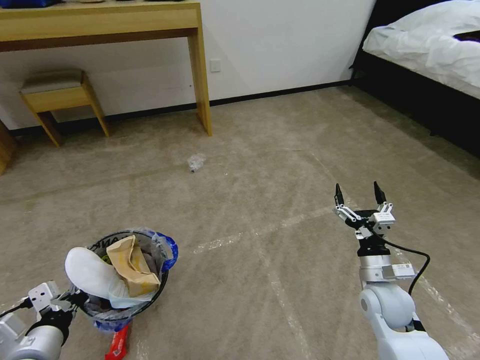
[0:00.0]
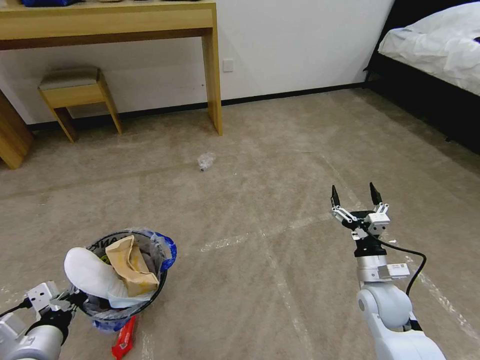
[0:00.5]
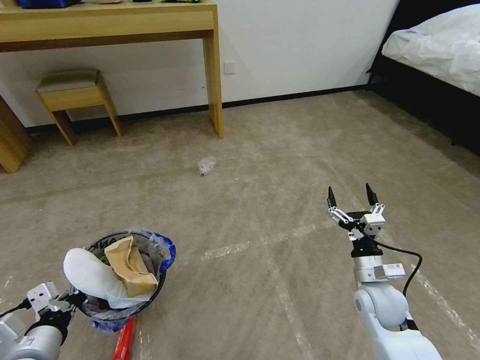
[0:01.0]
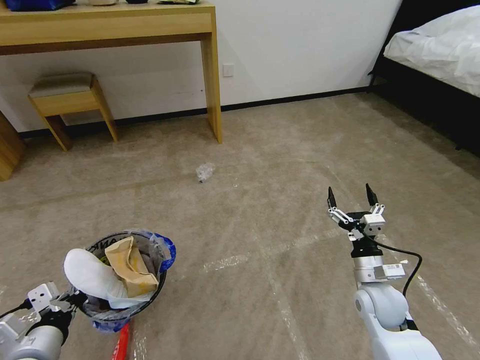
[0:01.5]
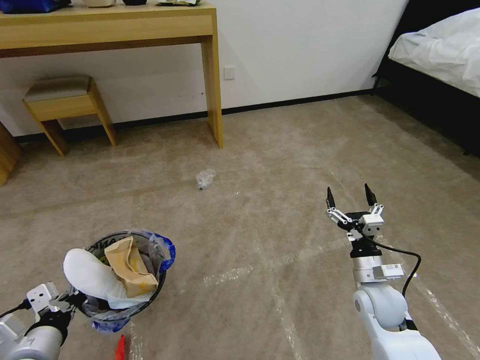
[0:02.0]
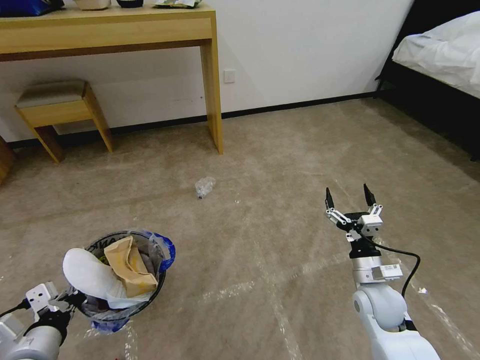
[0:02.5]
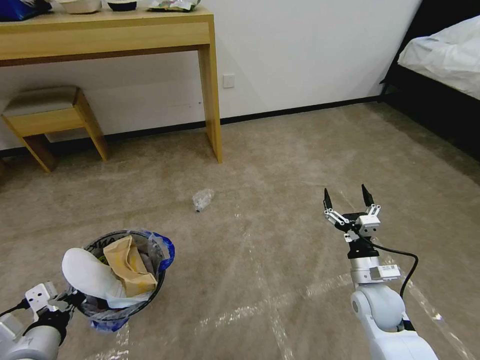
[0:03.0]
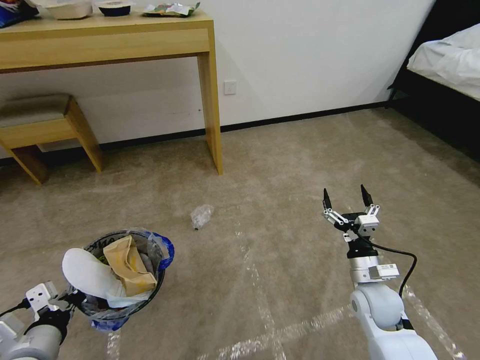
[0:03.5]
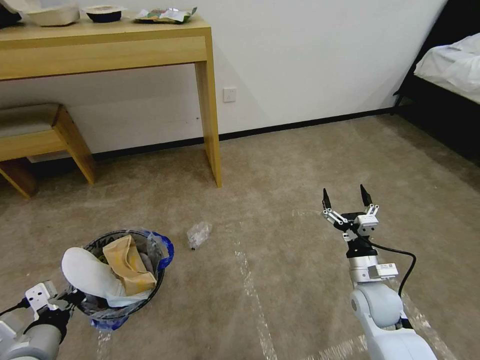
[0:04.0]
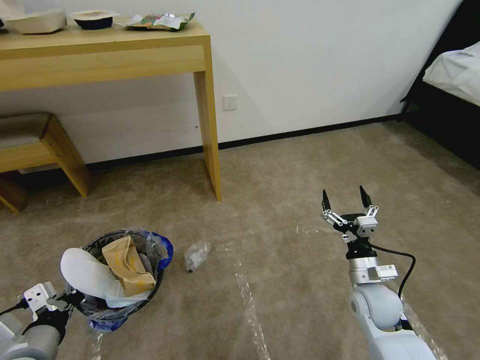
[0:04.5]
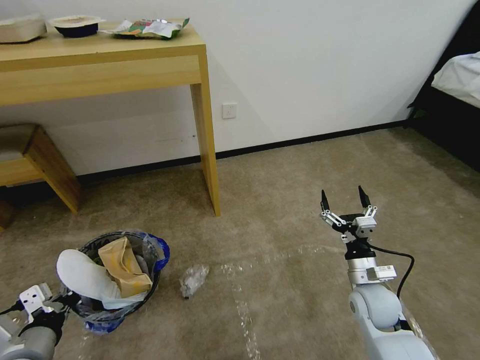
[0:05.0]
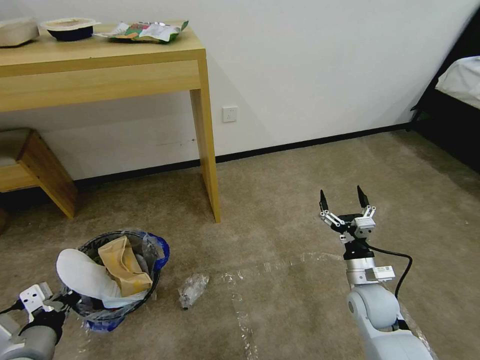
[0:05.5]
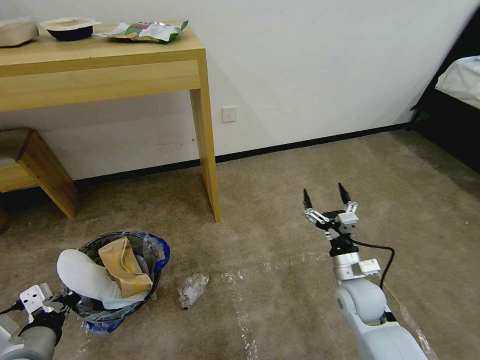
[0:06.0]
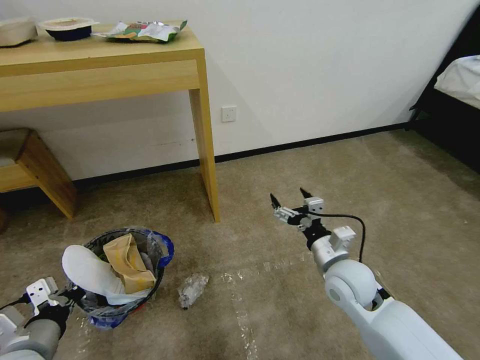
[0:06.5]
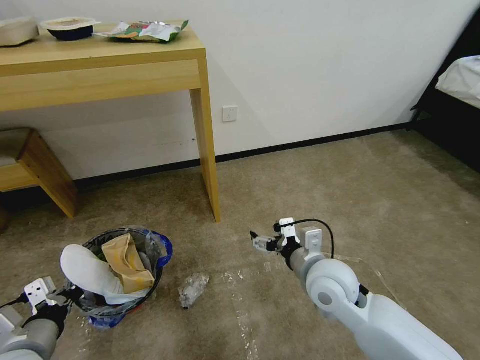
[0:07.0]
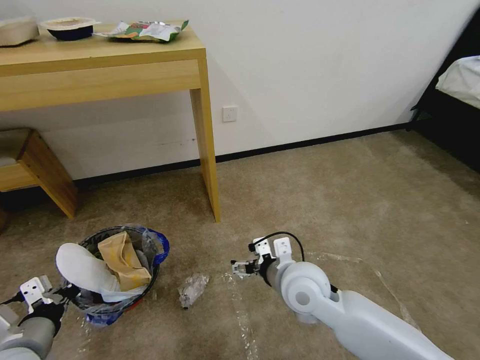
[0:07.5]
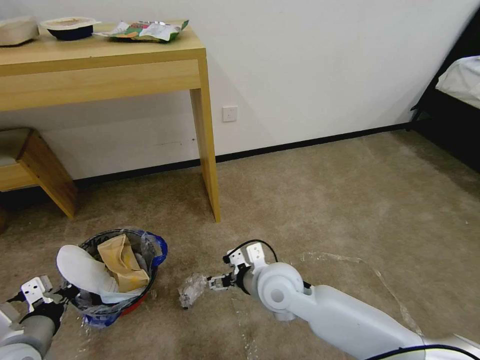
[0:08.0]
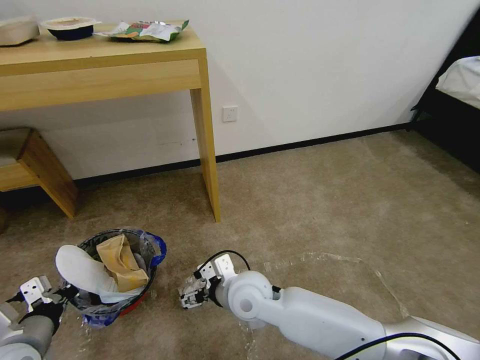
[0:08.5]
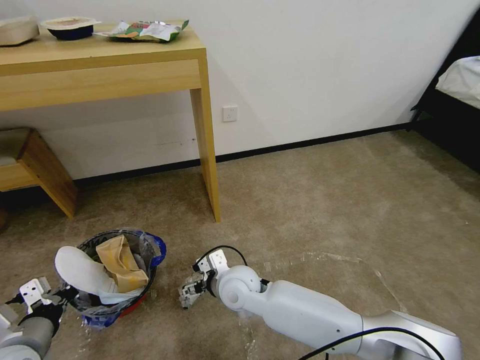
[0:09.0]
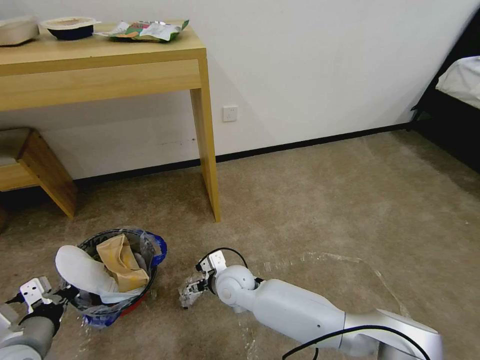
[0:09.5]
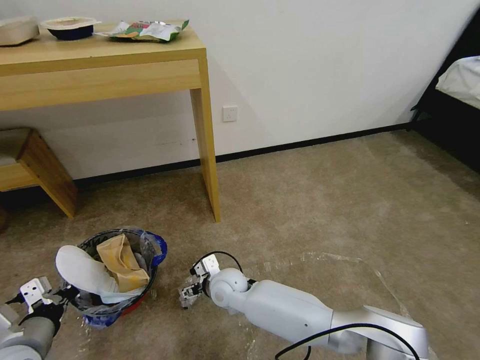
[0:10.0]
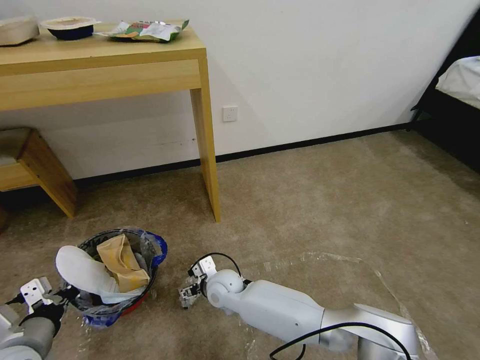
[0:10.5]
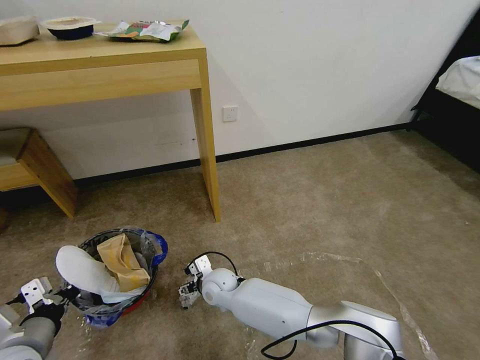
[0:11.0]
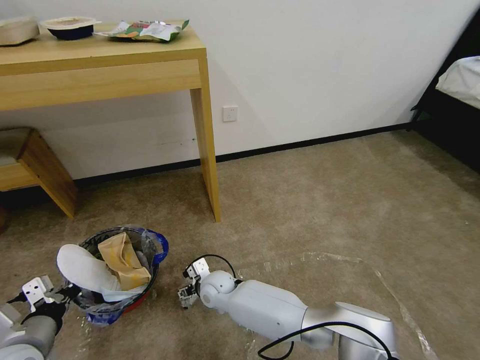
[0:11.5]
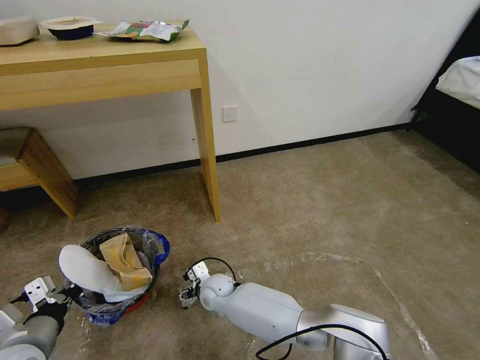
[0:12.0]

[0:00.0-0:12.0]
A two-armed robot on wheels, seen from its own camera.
Task of the whole recording: Pick up the trash bin and place the garbage on the floor into it.
0:00.0 to 0:02.0: The two grippers keep their place.
0:06.0 to 0:08.0: The right gripper goes about 20 cm to the left.
0:08.0 to 0:10.0: The right gripper shifts roughly 15 cm downward and to the left.
0:10.0 to 0:12.0: The right gripper goes some 5 cm downward.

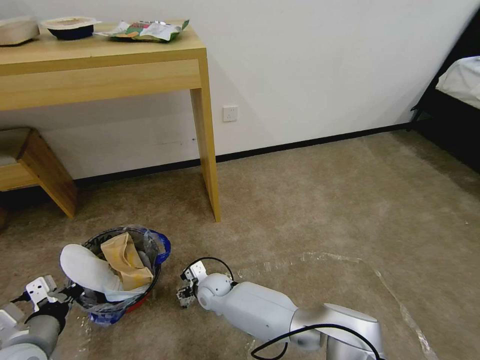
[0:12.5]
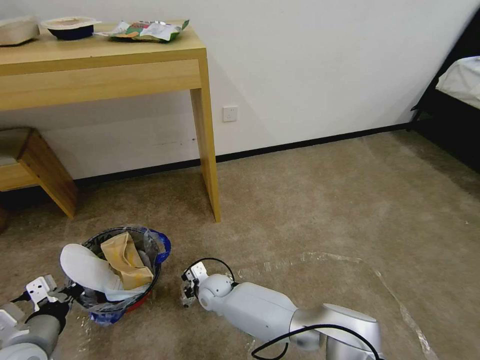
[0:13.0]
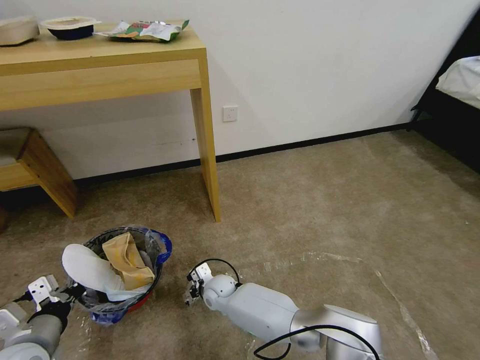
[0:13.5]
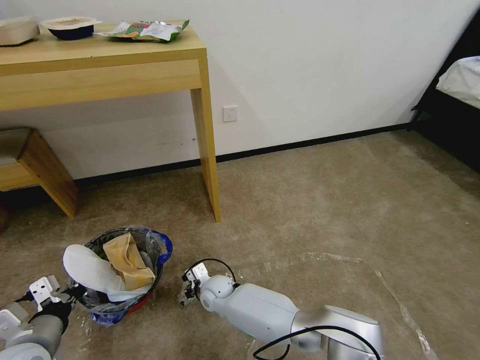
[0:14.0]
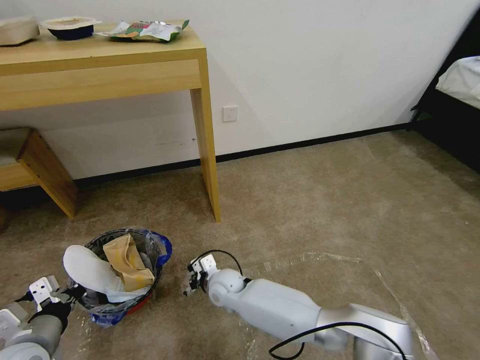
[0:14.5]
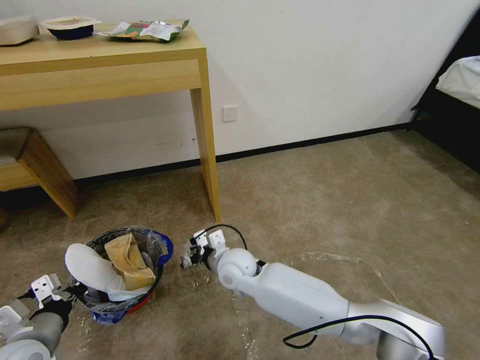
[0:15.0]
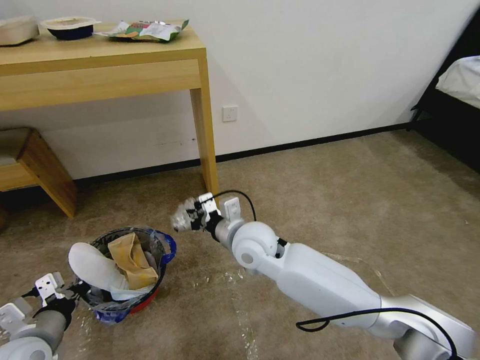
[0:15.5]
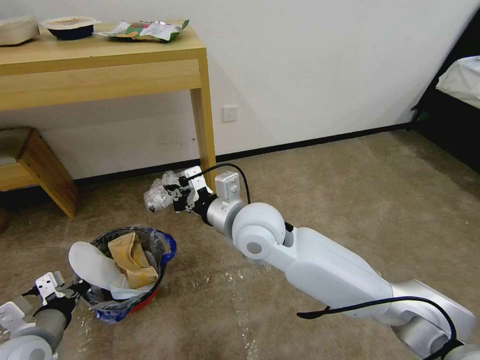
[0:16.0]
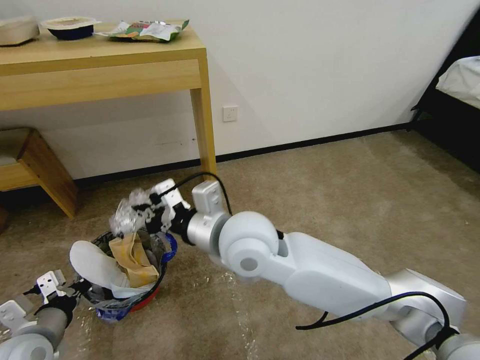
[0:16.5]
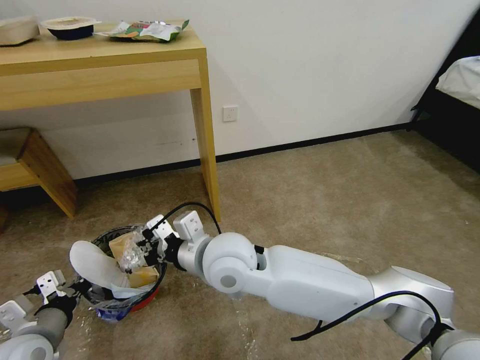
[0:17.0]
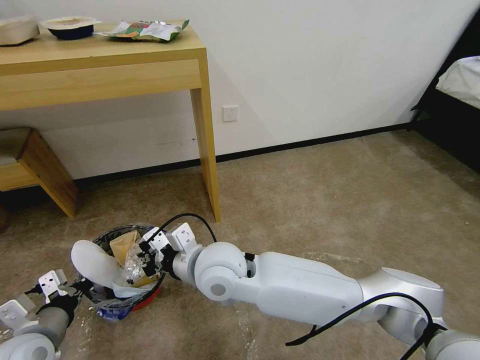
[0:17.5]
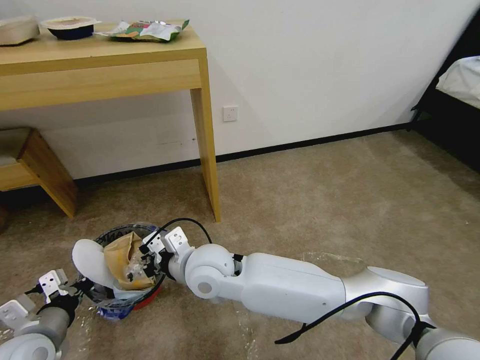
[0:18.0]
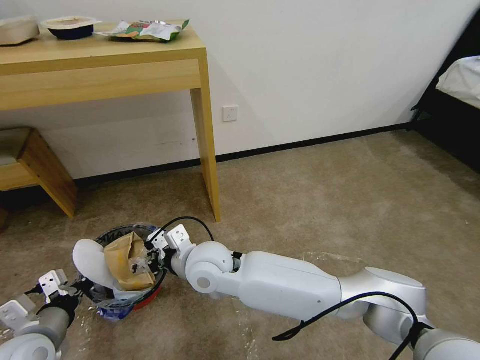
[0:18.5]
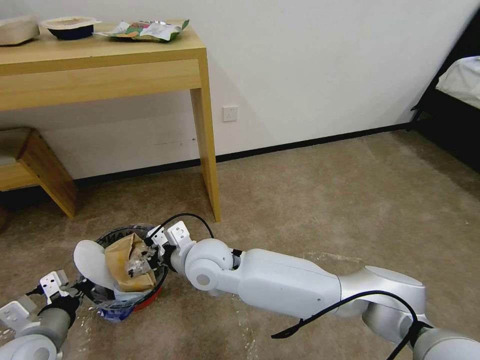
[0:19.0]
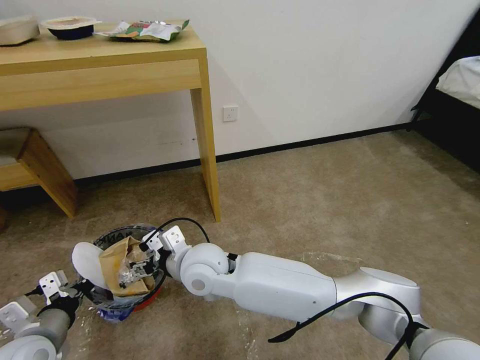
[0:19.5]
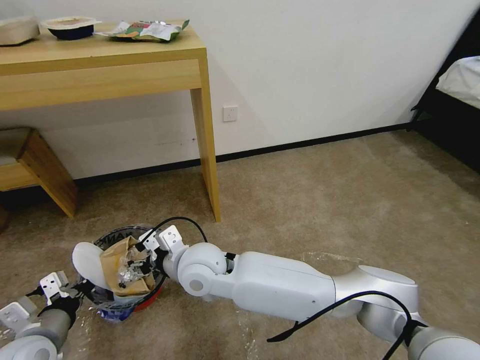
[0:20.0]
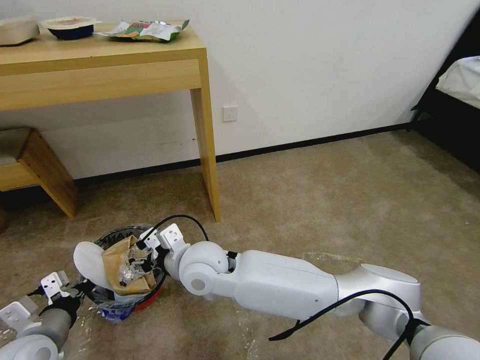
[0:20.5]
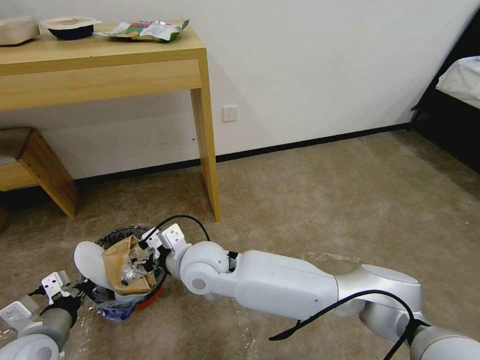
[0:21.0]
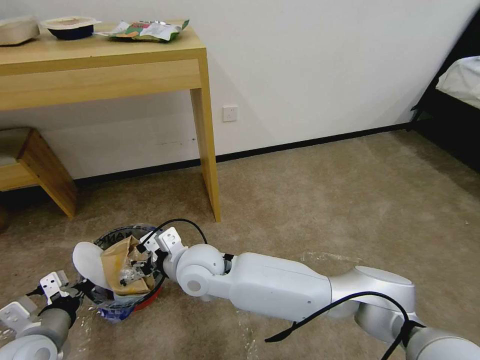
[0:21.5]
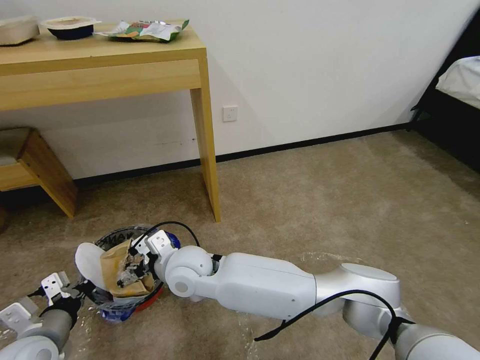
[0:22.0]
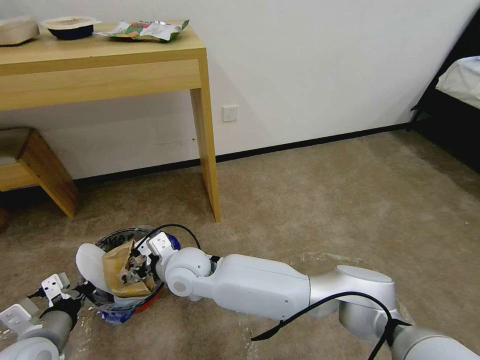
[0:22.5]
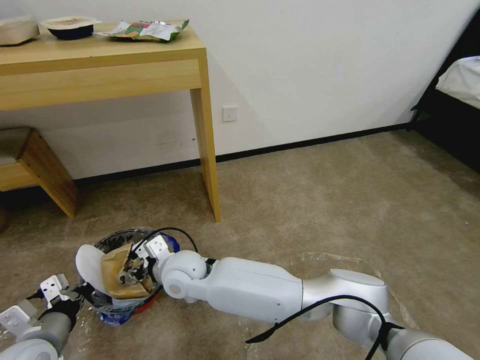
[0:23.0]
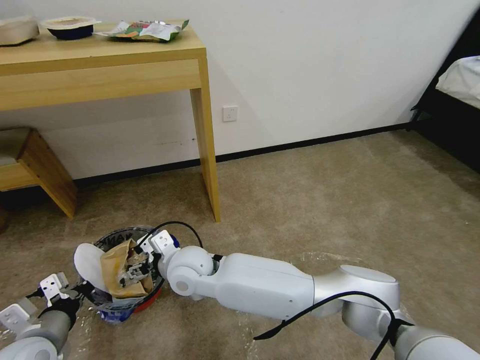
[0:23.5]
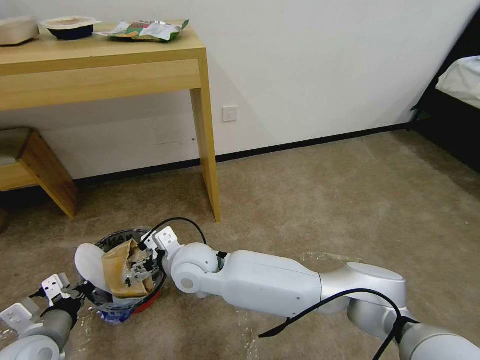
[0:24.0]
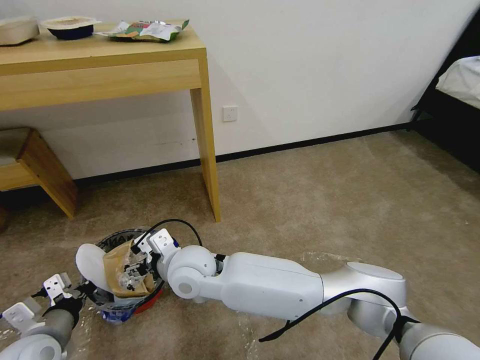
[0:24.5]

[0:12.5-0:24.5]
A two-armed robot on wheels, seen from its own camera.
Task of the whole recording: Pick up the trash bin and place the garbage on the floor into it.
0:12.5 to 0:14.5: The right gripper closes.
0:14.5 to 0:16.5: The right gripper goes approximately 30 cm upward.
0:16.5 to 0:18.5: The right gripper shifts about 15 cm downward and to the left.
0:18.5 to 0:20.5: The right gripper opens.
0:20.5 to 0:22.5: The right gripper travels downward by about 5 cm.
0:22.5 to 0:24.5: The grippers make only small movements.

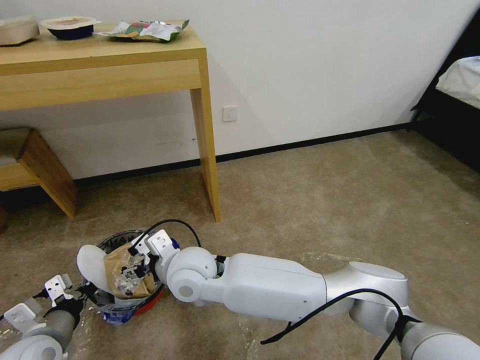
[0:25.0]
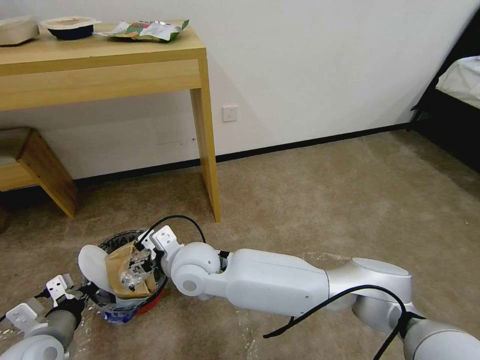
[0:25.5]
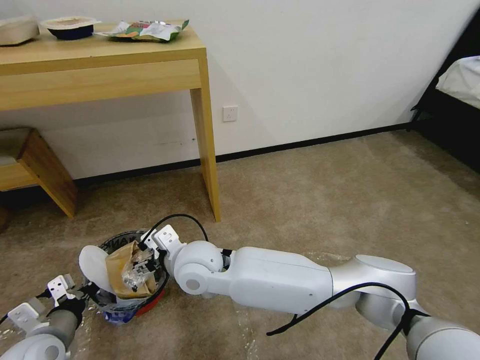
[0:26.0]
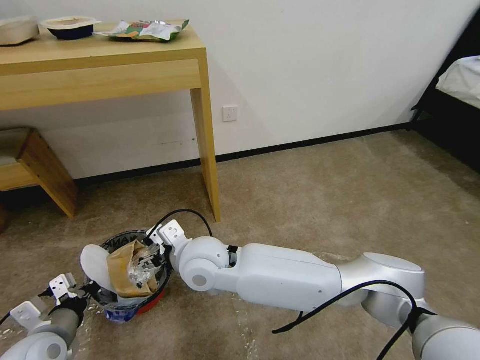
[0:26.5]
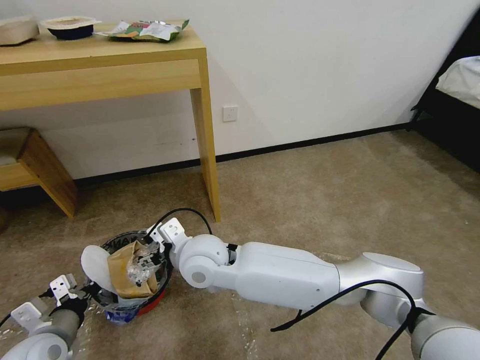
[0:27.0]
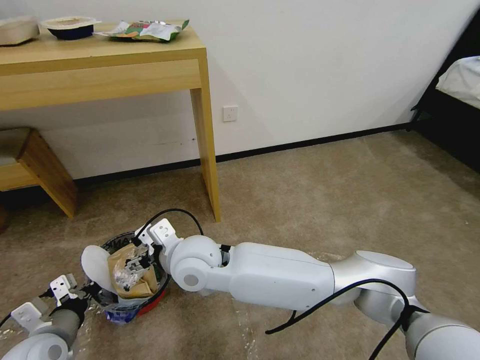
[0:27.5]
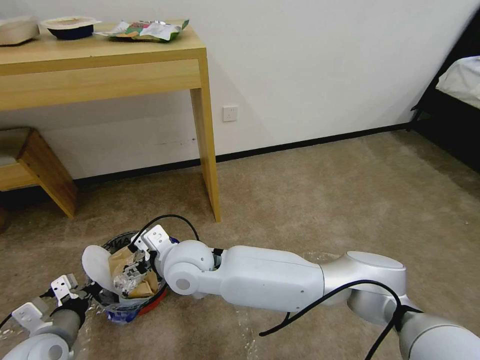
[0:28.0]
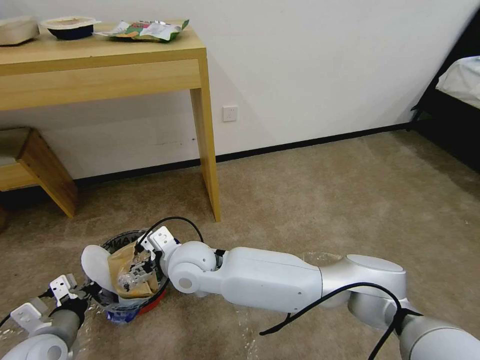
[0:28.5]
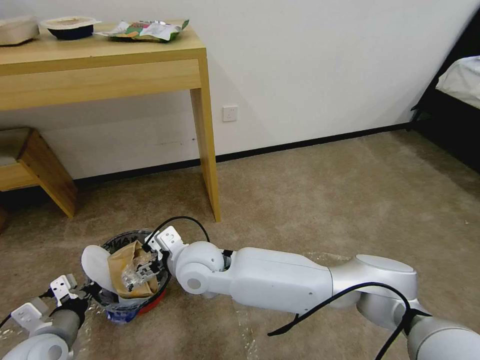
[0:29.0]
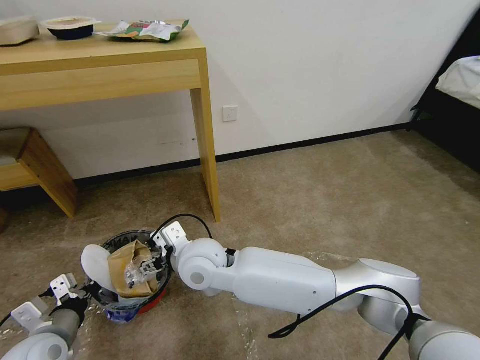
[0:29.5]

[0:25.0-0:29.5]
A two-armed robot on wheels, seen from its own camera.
Task of the whole recording: Pick up the trash bin and place the garbage on the floor into it.
0:25.0 to 0:29.5: The grippers stay close to where they were, moving slightly.
